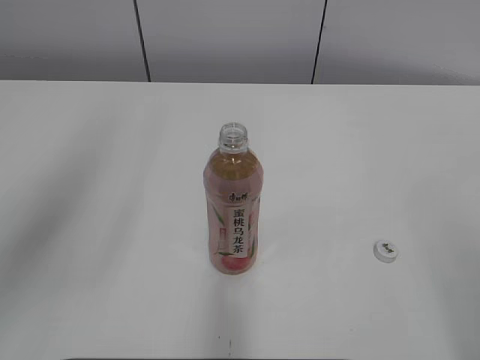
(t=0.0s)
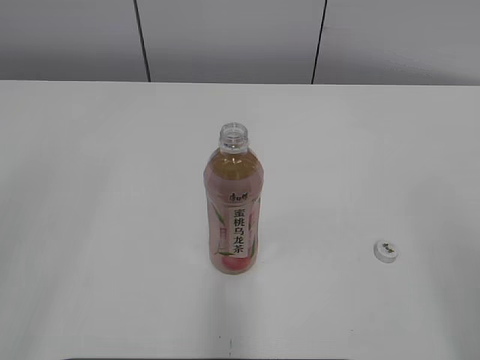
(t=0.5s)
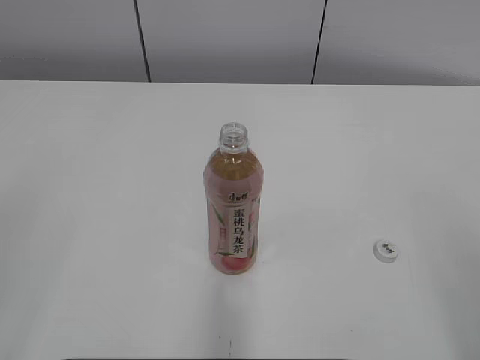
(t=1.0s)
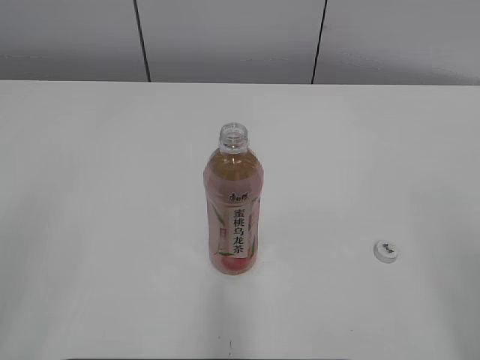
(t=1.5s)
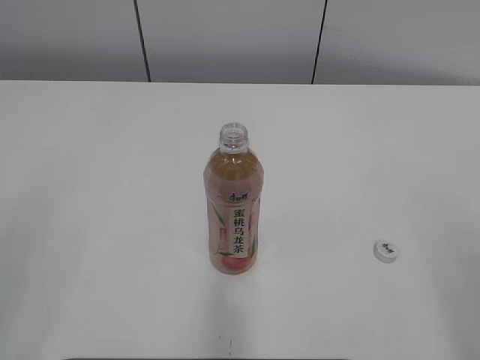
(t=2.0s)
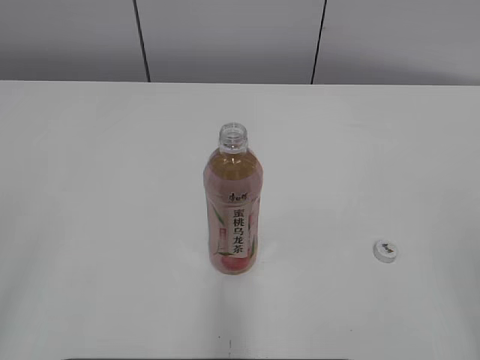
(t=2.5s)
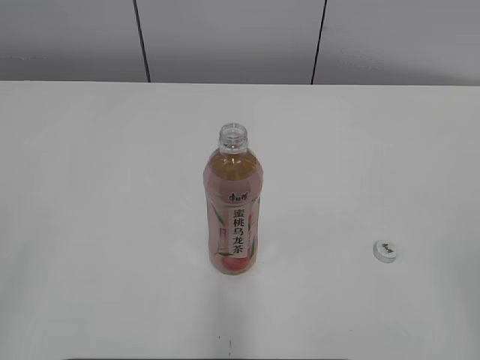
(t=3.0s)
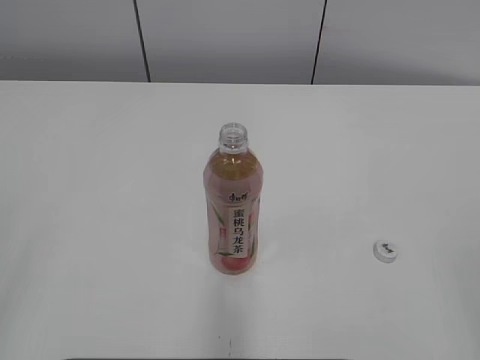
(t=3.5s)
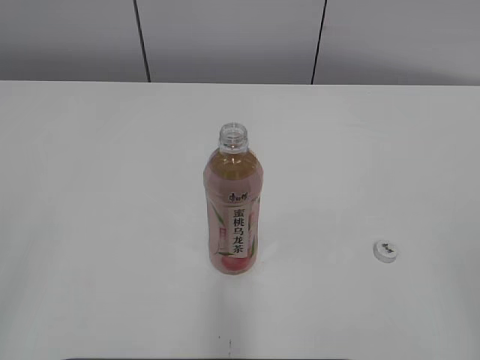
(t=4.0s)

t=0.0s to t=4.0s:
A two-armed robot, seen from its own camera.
t=0.0s to t=2.0s: The left gripper shifts some 15 cm backward, downward and to the left, and closes its fingers.
